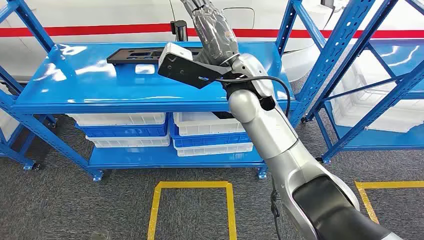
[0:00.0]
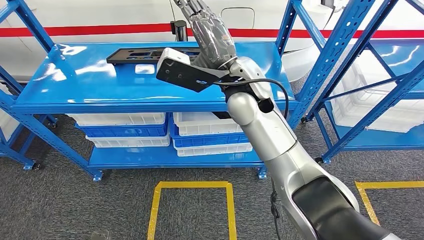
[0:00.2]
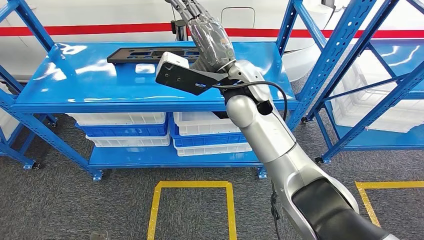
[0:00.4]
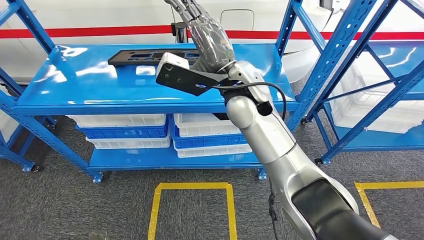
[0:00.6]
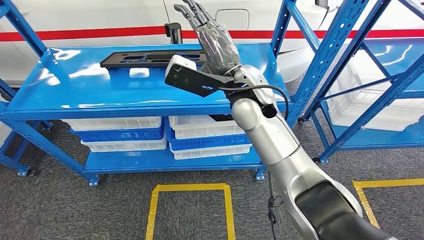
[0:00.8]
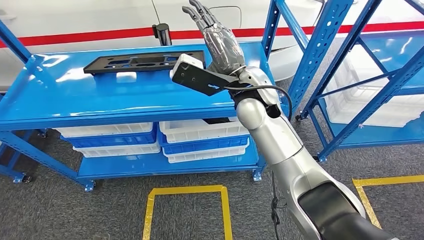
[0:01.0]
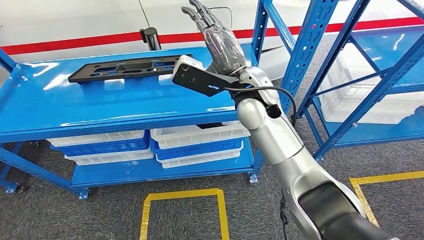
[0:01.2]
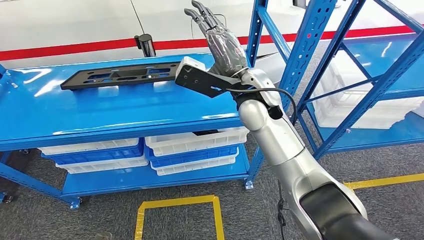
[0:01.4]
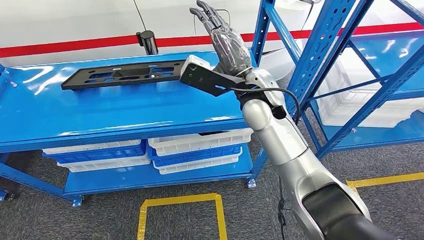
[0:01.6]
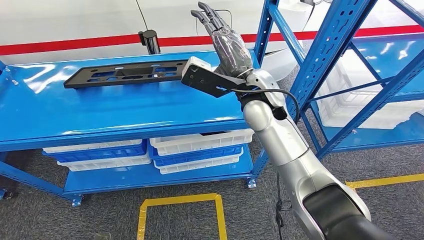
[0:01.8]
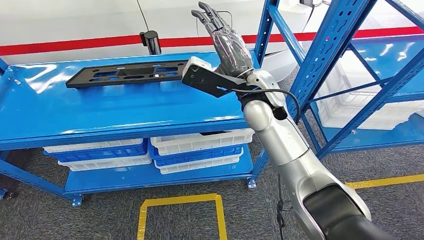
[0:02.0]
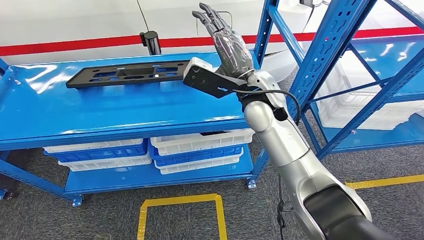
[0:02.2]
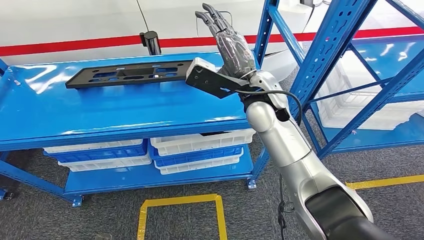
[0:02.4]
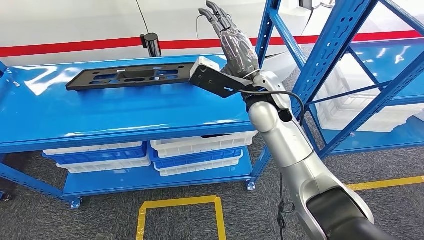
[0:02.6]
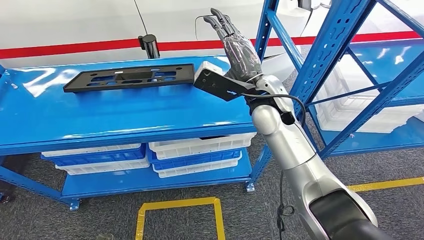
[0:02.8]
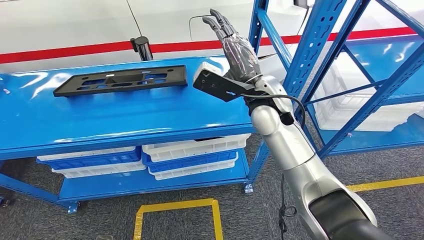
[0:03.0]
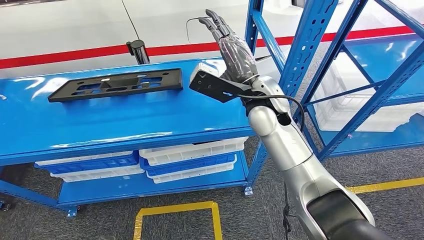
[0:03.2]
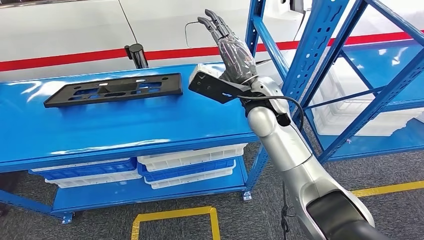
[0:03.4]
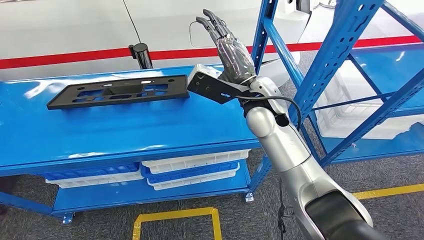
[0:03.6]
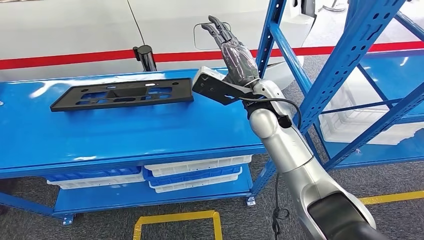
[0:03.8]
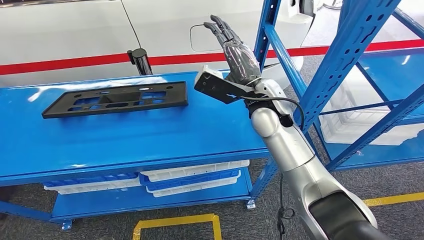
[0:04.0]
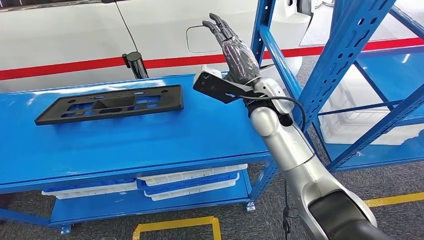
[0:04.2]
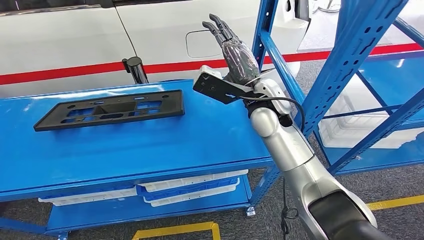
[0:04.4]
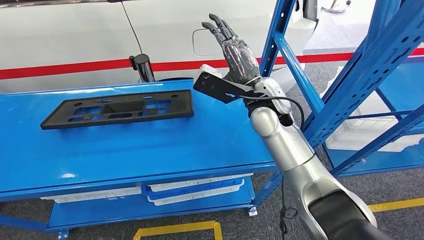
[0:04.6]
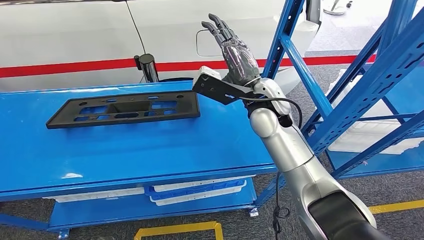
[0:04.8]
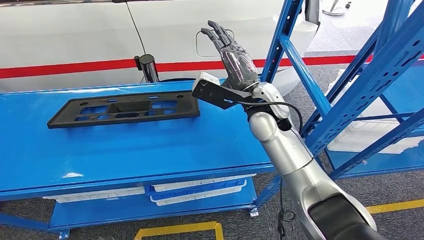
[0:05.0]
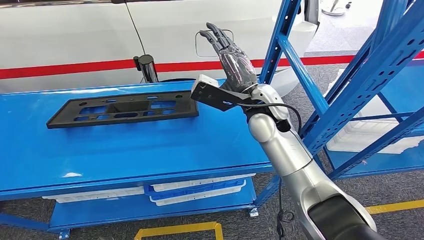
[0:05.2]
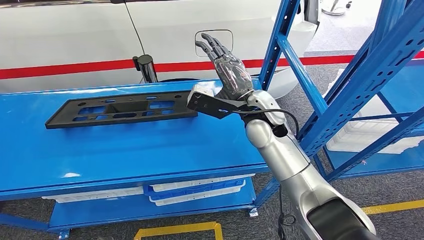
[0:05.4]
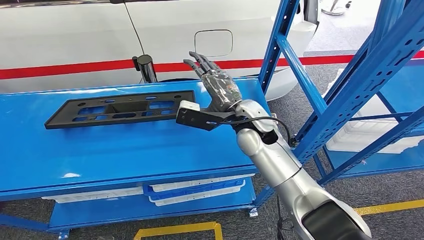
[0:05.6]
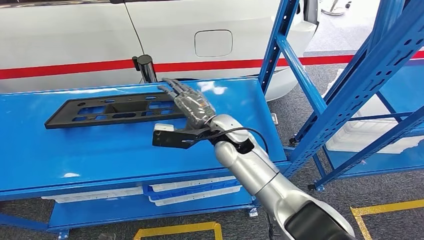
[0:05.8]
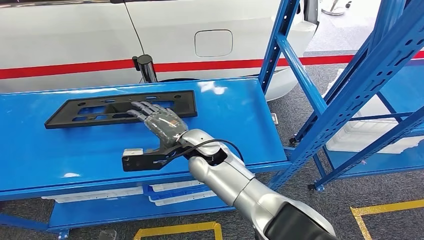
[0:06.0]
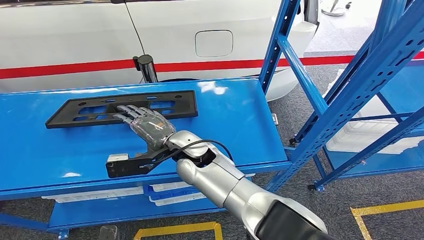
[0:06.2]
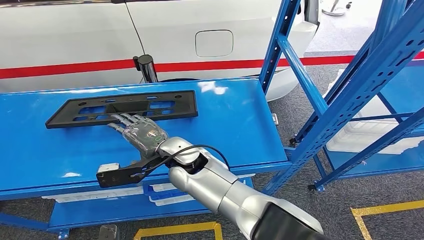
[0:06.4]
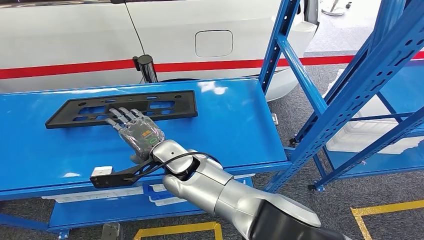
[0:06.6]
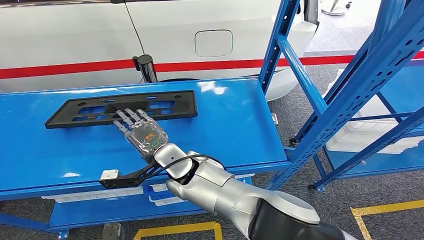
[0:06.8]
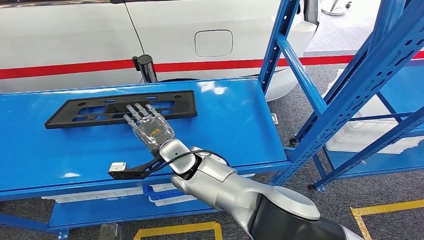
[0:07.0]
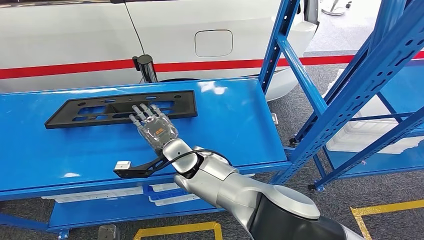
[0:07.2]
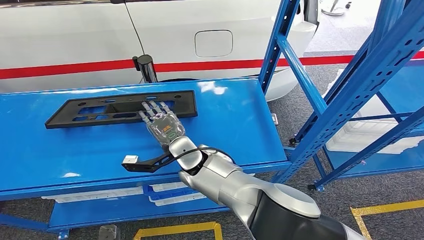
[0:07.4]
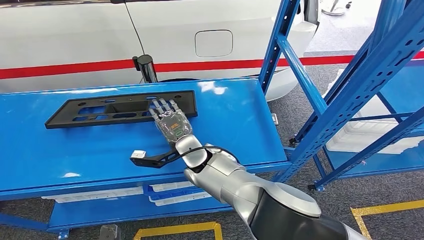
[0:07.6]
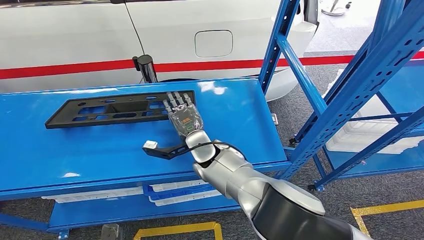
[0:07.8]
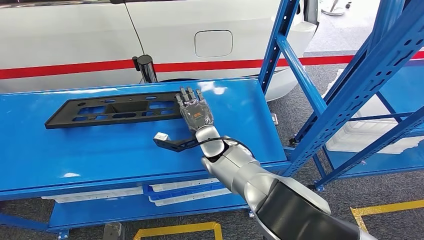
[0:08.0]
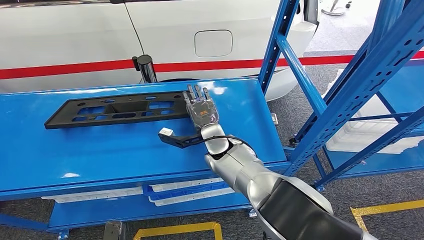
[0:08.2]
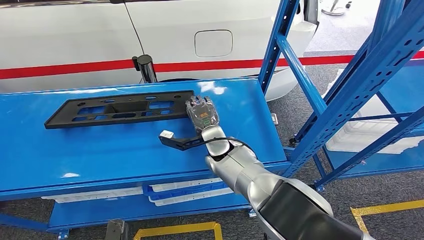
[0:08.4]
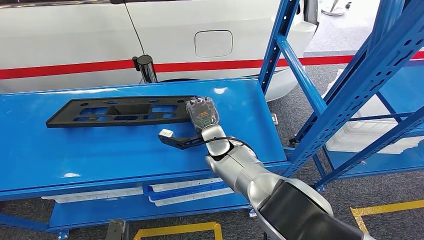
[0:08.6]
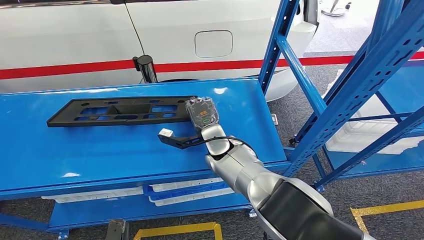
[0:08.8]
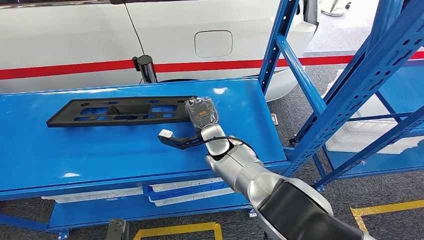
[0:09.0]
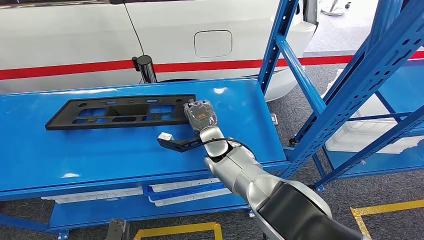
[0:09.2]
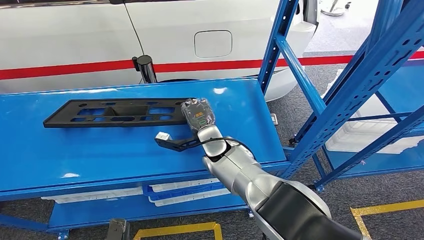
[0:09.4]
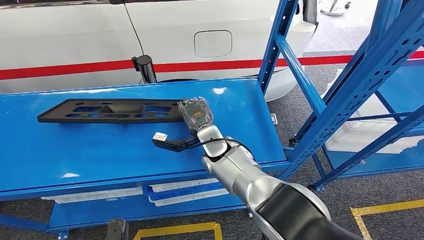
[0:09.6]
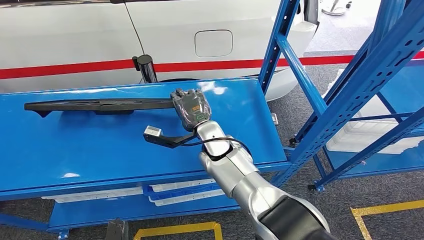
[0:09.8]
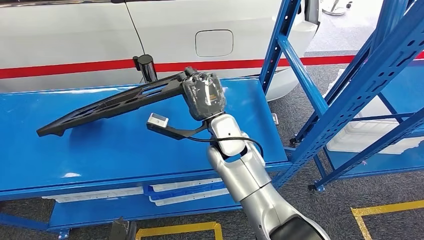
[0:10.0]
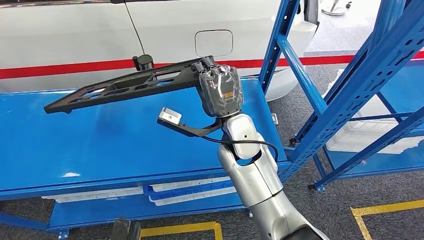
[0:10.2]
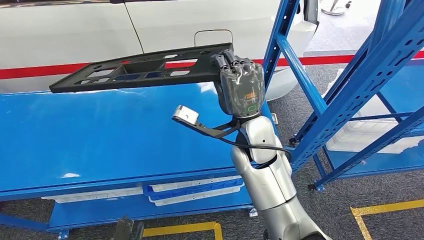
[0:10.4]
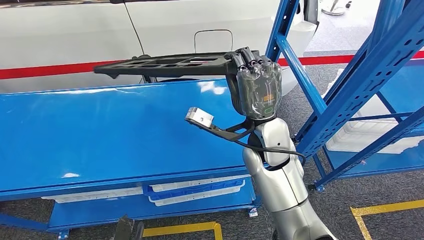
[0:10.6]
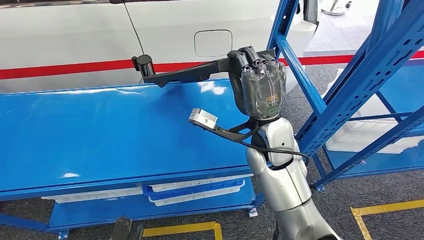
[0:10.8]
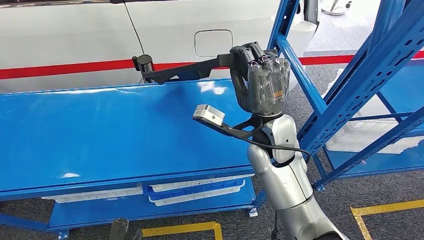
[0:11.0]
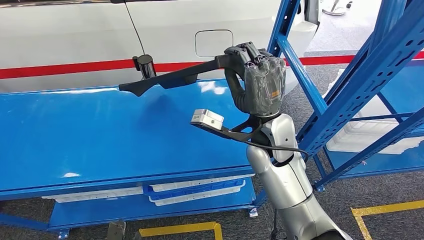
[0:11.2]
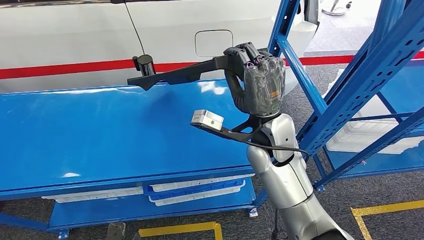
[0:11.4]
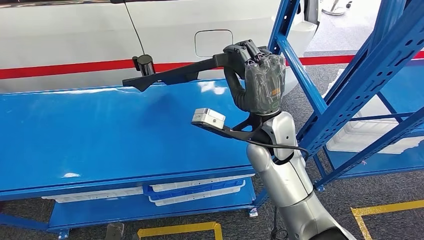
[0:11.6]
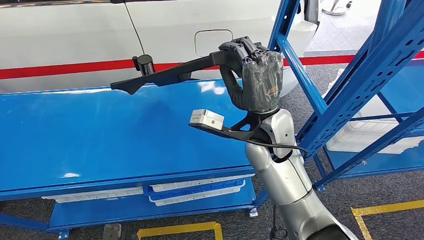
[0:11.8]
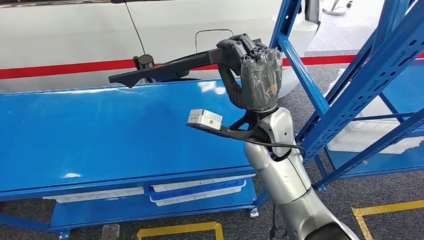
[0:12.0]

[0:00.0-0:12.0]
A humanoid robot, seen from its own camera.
0:06.0 to 0:07.6: The right hand shifts by approximately 5 cm.
0:07.6 to 0:09.0: The right hand is displaced to the right by some 5 cm.

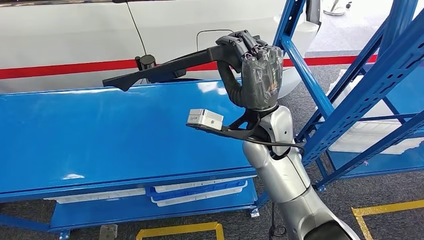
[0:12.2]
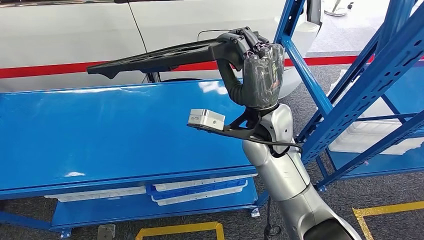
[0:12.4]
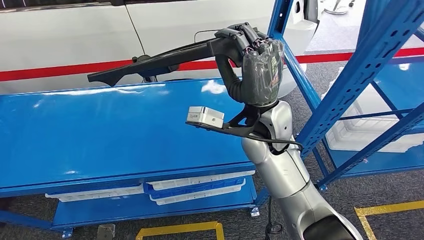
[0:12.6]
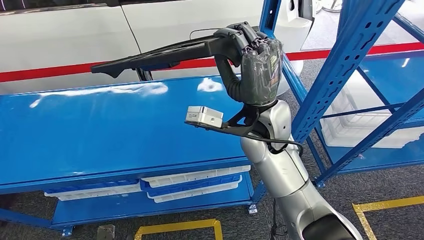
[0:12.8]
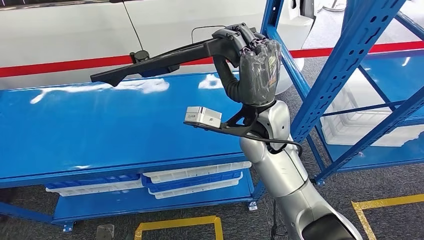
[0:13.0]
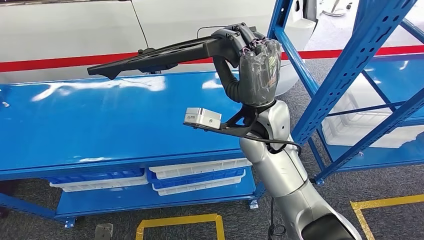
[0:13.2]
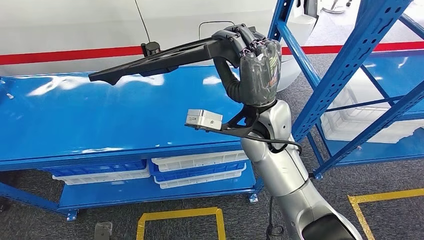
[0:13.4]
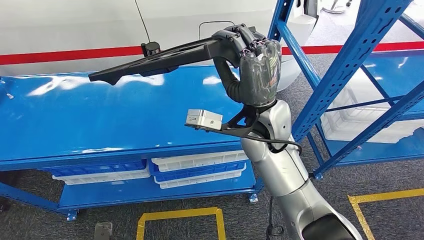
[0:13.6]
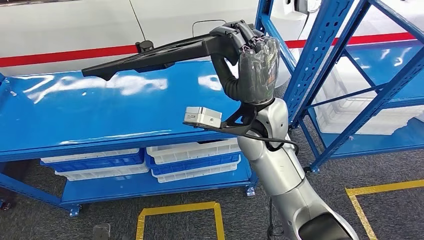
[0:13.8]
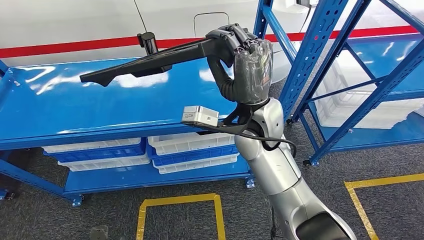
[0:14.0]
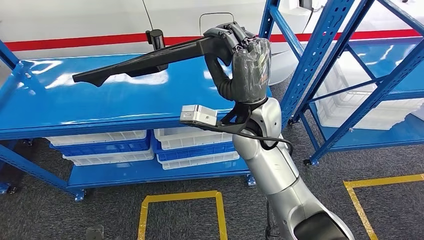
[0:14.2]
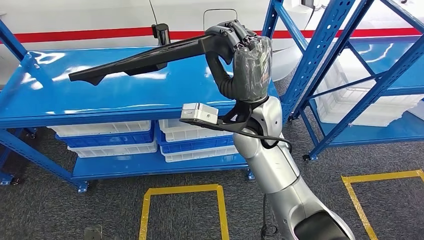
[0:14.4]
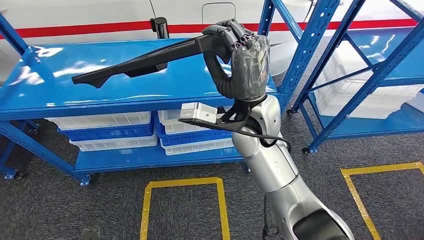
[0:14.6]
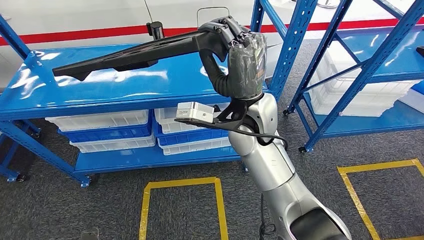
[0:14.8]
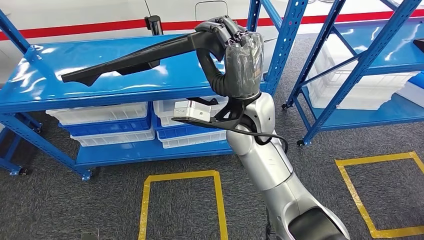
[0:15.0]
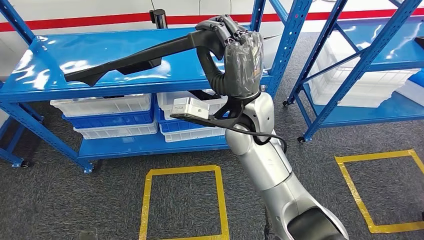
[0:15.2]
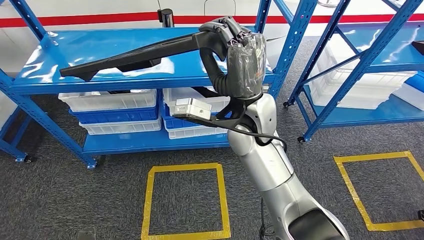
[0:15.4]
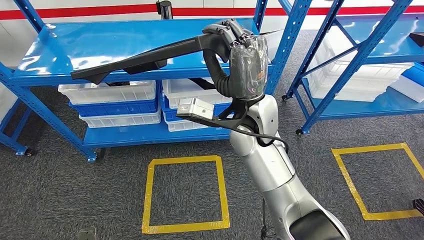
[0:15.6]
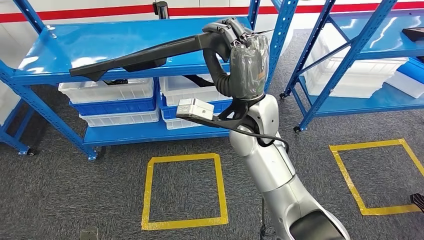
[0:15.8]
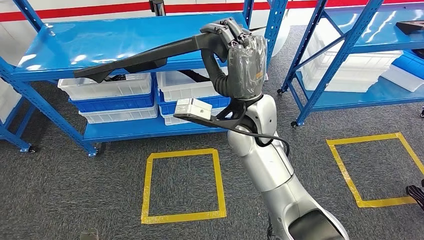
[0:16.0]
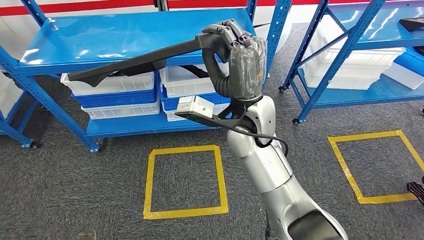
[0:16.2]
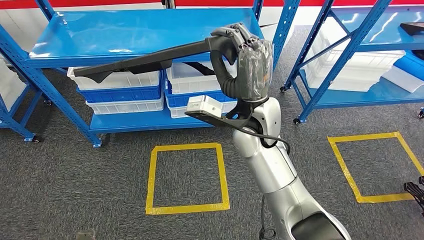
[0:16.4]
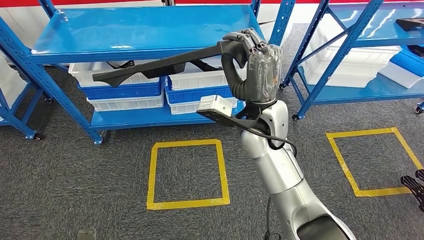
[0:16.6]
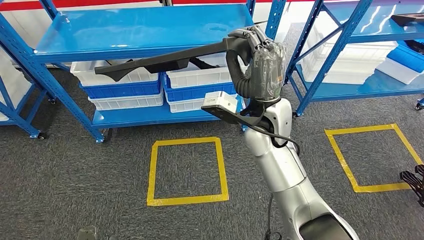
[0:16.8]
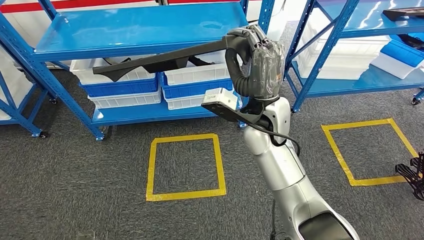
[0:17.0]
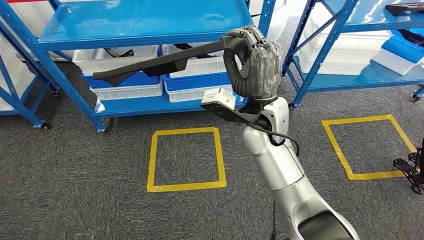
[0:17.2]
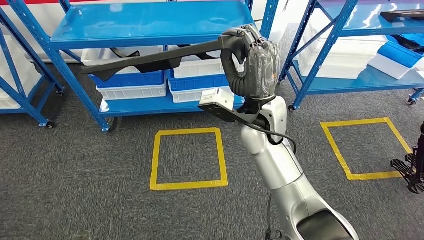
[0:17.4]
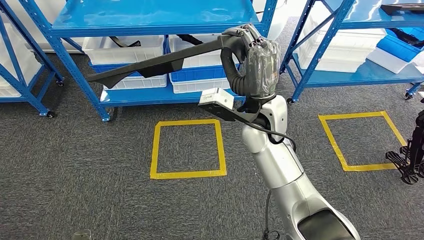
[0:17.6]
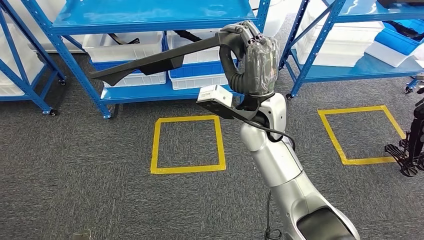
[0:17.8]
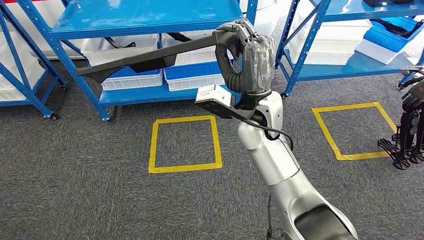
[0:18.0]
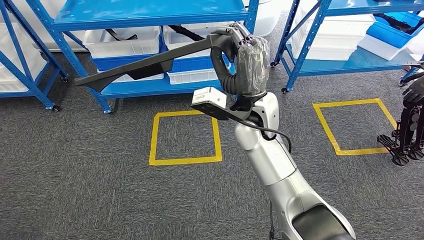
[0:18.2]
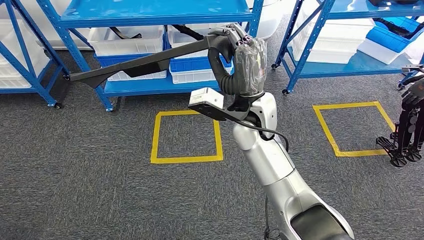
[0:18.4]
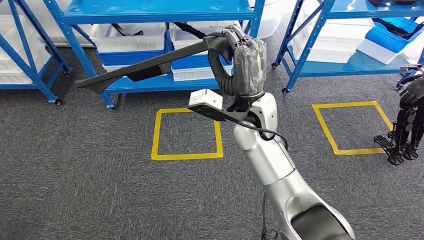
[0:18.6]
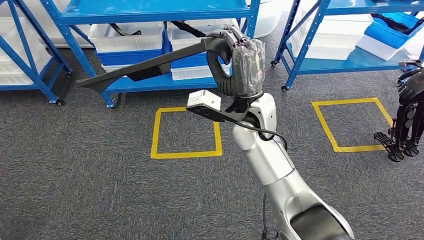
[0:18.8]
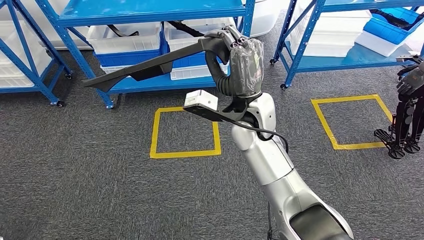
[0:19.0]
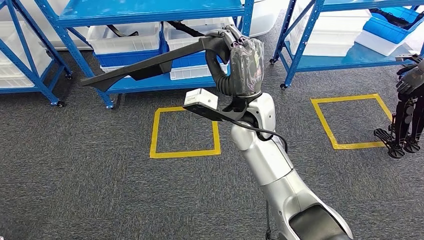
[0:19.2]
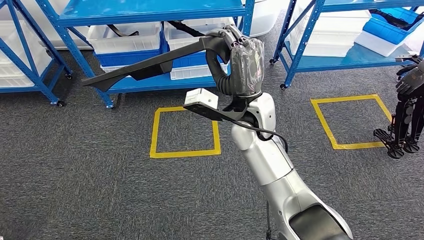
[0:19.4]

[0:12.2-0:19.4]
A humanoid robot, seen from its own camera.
Step, 0:12.2 to 0:15.0: Pick up the large material from the shelf.
